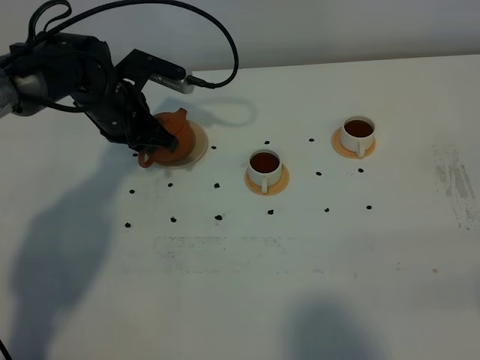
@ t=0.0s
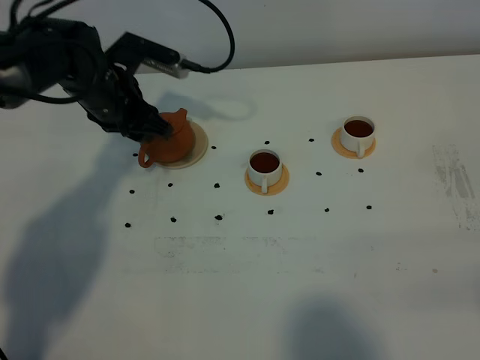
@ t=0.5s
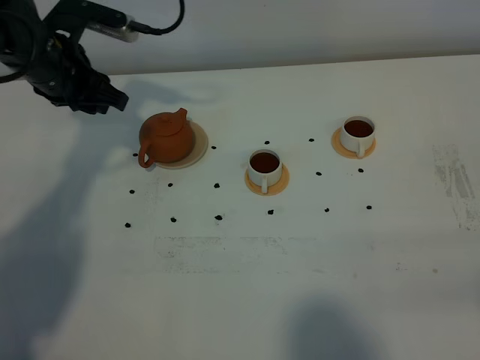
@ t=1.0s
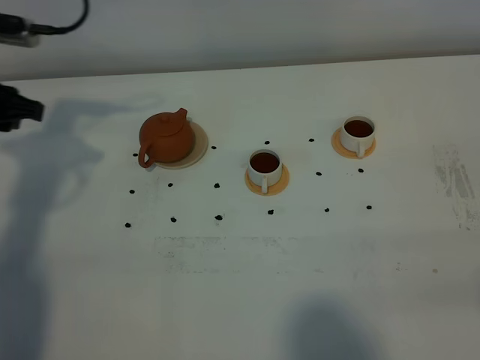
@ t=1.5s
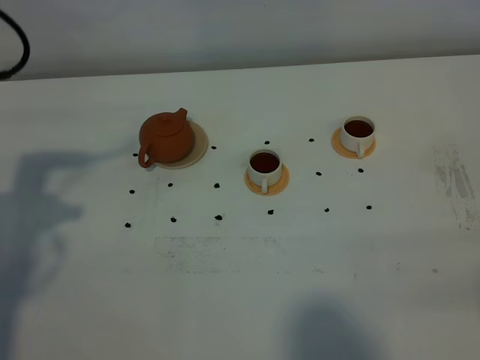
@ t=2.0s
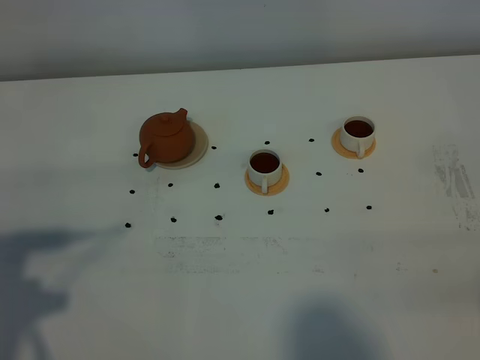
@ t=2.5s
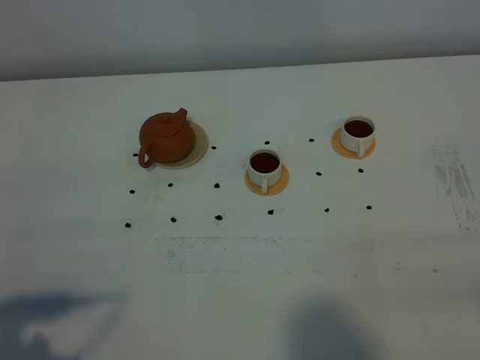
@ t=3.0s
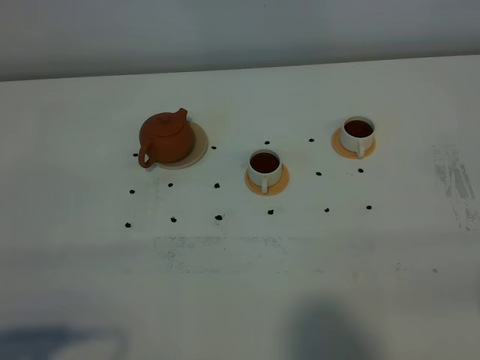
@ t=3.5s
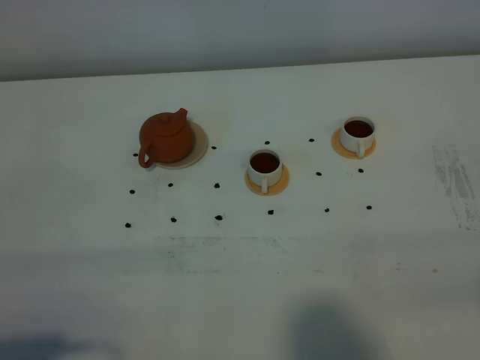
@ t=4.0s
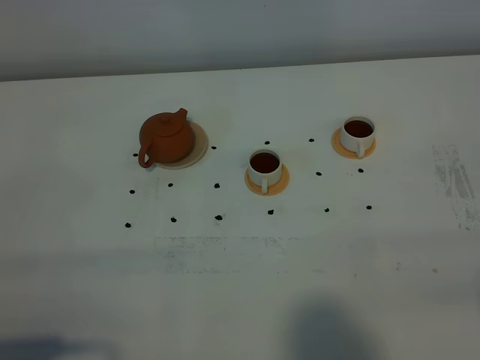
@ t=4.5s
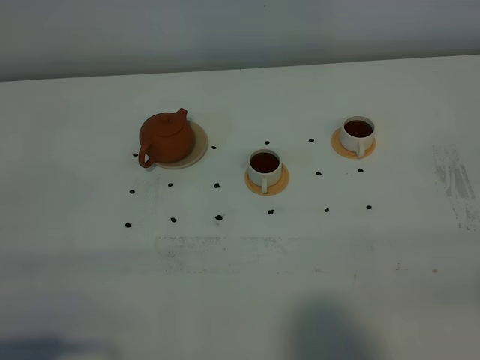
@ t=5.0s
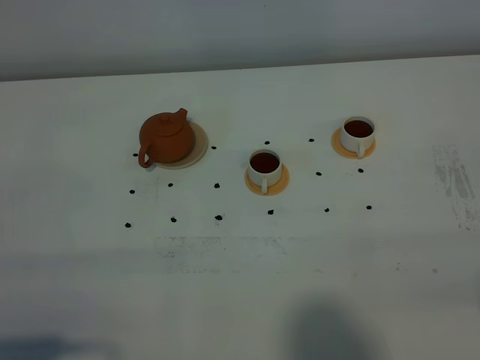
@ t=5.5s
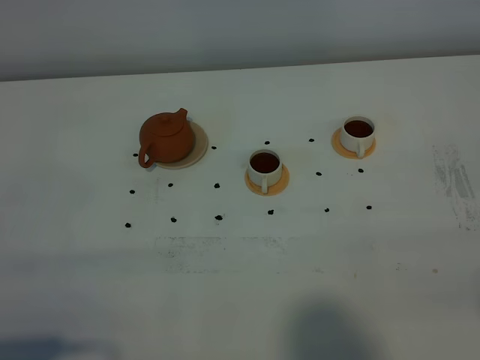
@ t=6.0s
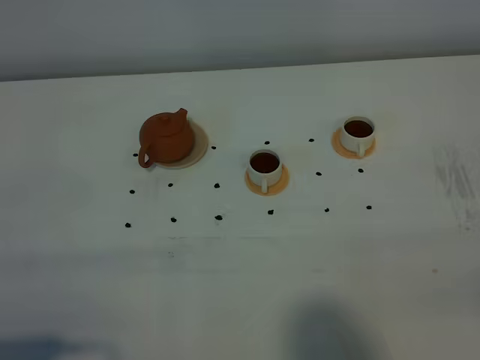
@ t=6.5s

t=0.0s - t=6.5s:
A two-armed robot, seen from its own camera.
Task of the whole recording: grasp the brown teapot and pour the tea into the two white teacups one by one, put the brown teapot back in its original place.
t=0.0s - t=2.0s: The left gripper heads backward, to the left and upward, covering some 25 cm.
t=2.0s - t=4.5s: The left gripper heads backward, covering about 25 cm.
